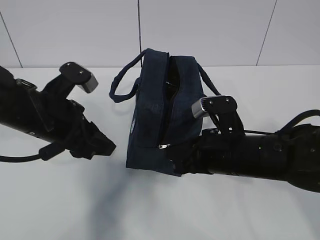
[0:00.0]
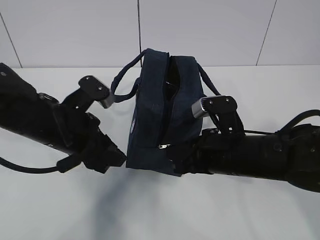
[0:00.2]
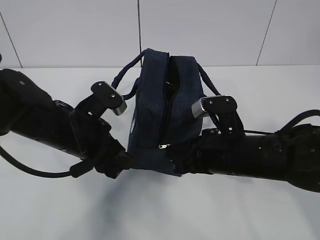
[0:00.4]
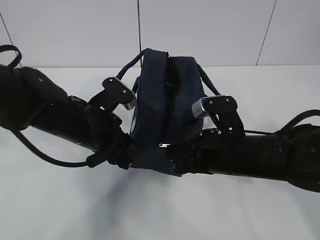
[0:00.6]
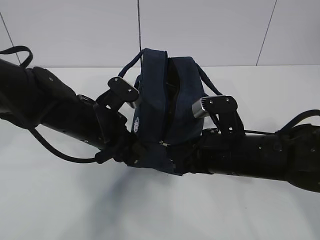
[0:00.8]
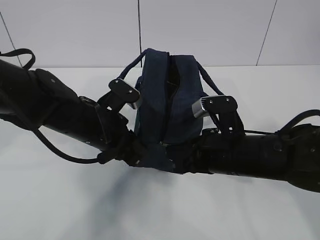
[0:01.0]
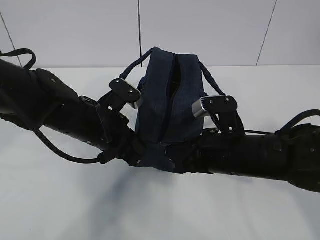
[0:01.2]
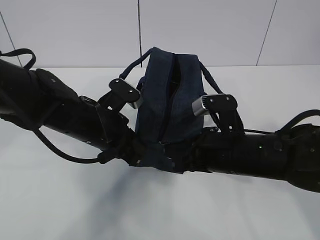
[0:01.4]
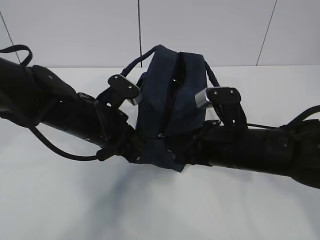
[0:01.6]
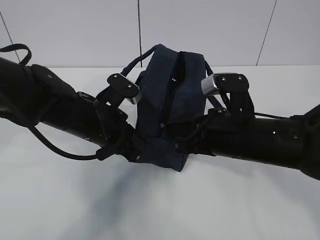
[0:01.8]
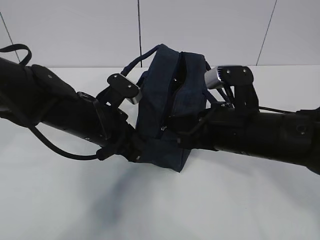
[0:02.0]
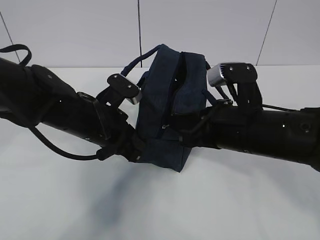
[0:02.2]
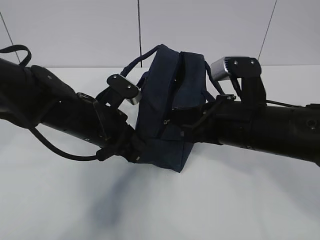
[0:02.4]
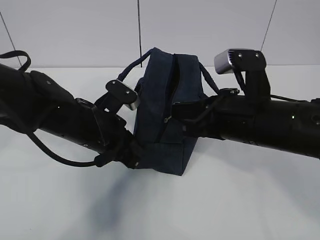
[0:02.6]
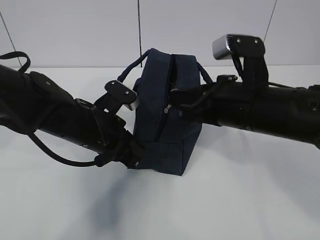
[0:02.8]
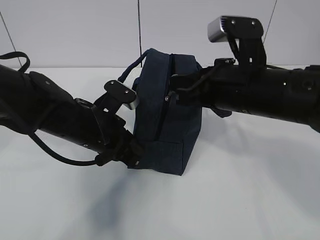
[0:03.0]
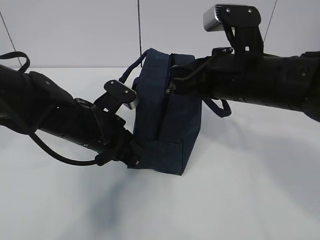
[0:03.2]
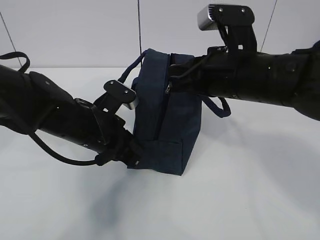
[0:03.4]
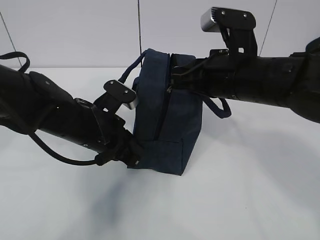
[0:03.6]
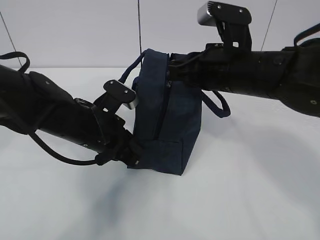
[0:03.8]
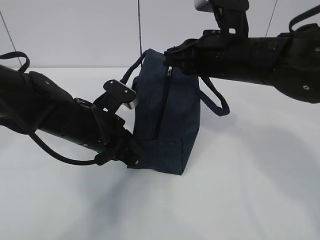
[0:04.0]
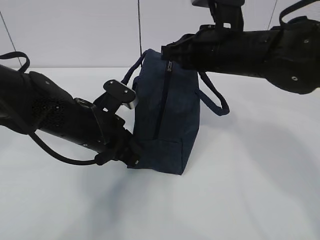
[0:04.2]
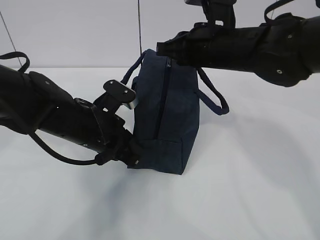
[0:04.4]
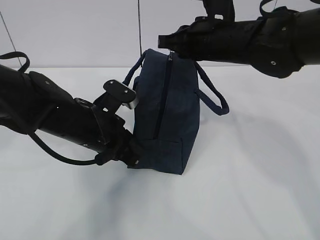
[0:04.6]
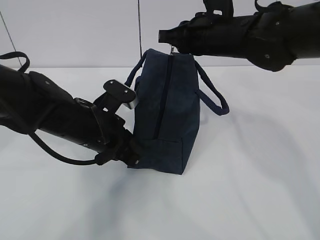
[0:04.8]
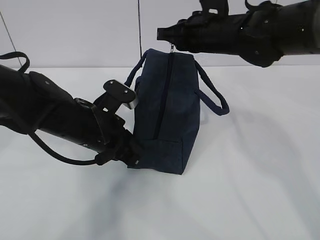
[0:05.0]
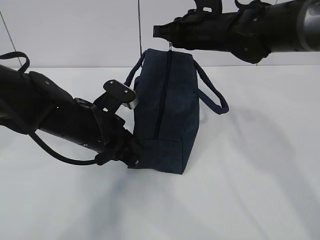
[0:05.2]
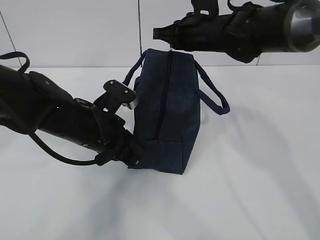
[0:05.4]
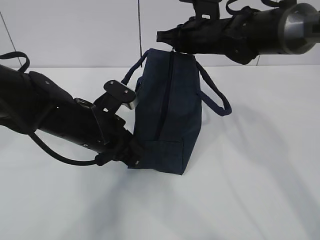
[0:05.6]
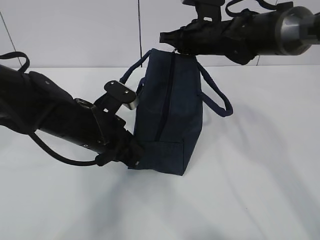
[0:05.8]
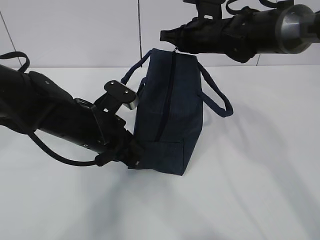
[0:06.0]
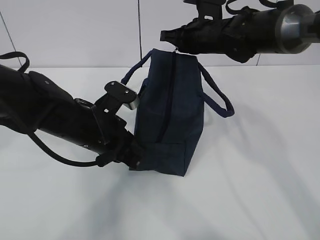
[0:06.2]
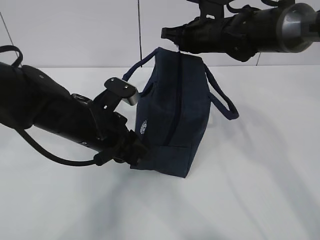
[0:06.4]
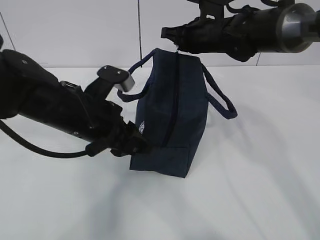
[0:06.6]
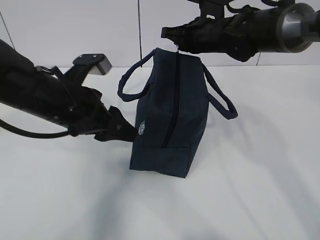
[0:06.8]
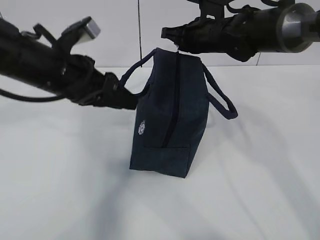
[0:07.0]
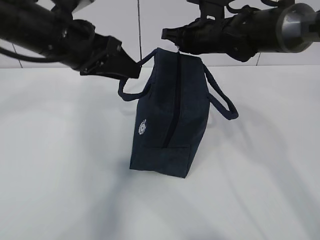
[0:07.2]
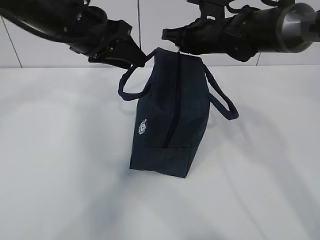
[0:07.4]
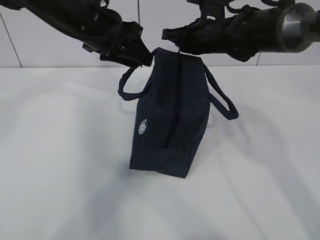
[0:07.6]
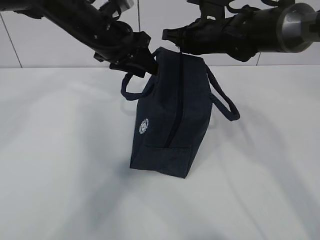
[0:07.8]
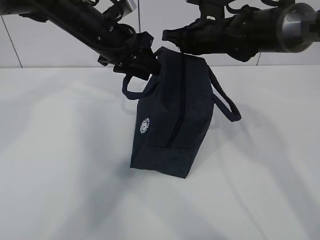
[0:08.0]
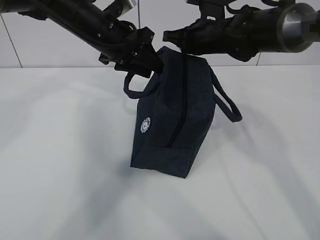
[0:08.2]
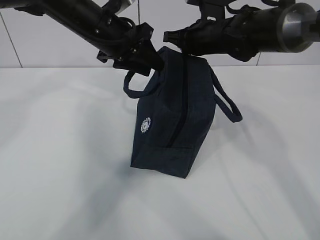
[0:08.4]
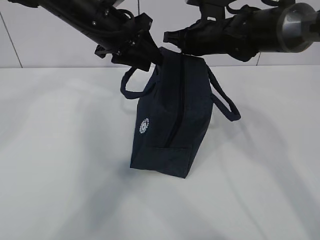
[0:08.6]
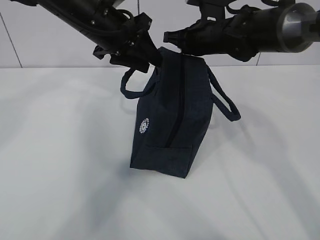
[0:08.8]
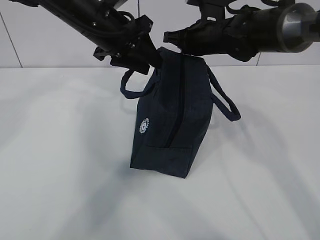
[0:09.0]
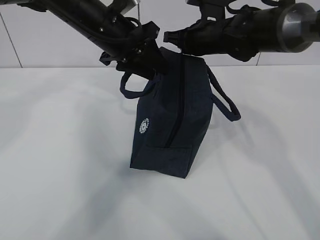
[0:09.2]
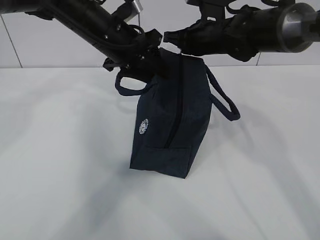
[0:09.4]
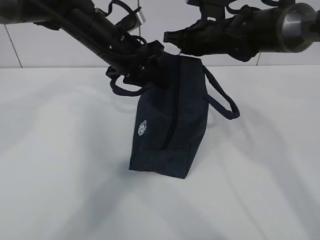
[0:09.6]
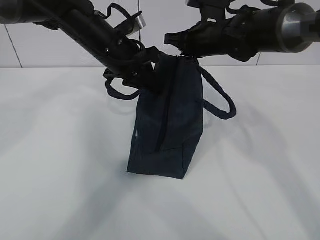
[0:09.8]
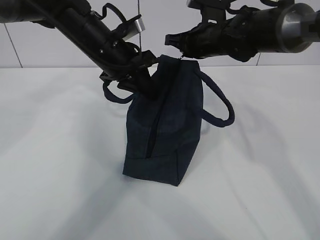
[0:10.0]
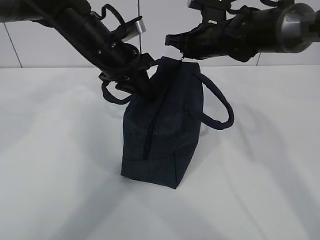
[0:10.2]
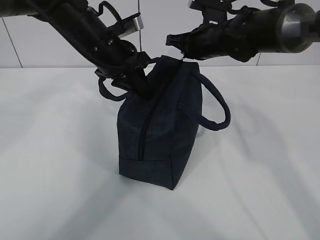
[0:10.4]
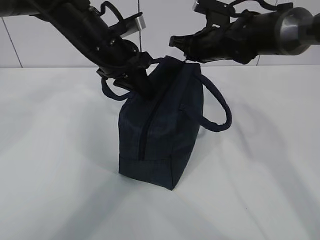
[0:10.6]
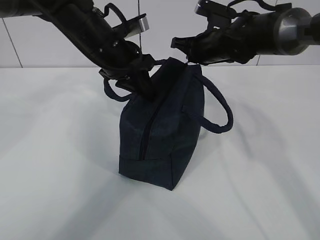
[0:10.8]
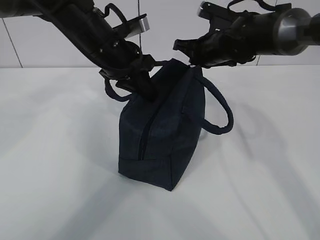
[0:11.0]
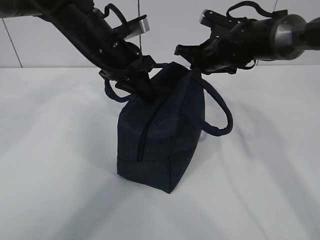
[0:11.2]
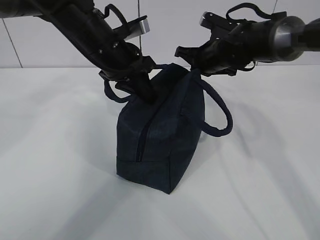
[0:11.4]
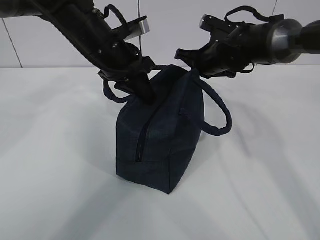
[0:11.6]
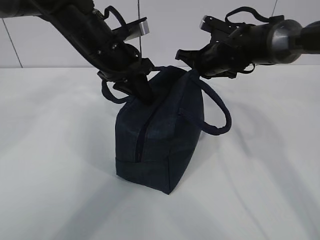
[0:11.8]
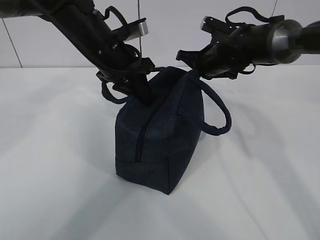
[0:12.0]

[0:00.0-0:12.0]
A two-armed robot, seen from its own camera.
0:00.0 to 0:01.6: The left gripper goes roughly 5 cm to the right, and closes.
0:01.6 to 0:03.0: The right gripper goes approximately 10 cm upward.
0:03.0 to 0:04.4: The right gripper shifts about 10 cm forward.
0:04.4 to 0:06.0: The right gripper is displaced forward by about 10 cm.
0:06.0 to 0:07.6: The left gripper moves upward and forward, roughly 15 cm, and opens its fingers.
0:07.6 to 0:09.0: The grippers stay close to where they were, moving slightly.
0:09.0 to 0:10.4: The left gripper closes its fingers.
0:10.4 to 0:12.0: The right gripper moves about 5 cm.

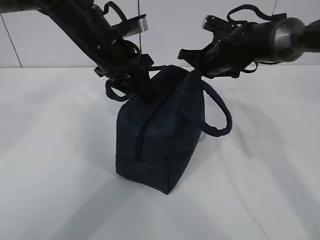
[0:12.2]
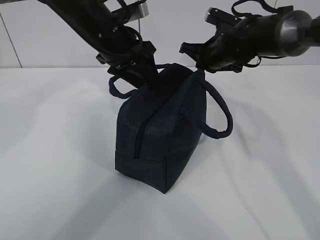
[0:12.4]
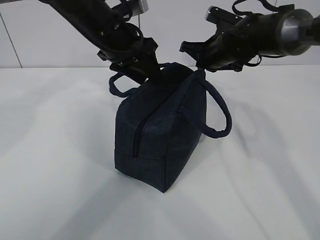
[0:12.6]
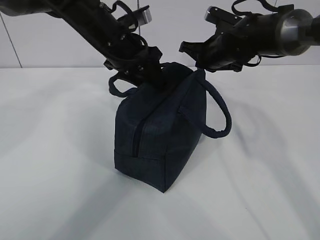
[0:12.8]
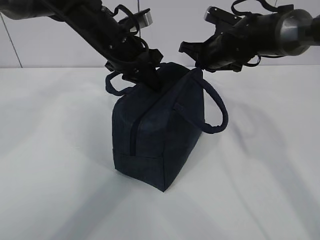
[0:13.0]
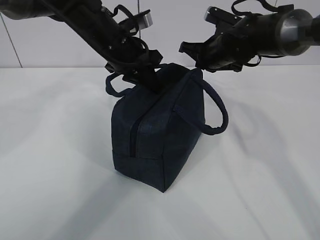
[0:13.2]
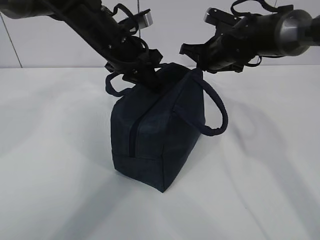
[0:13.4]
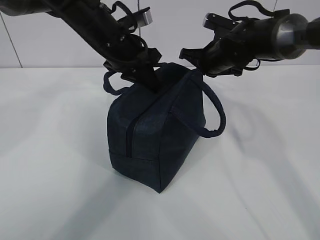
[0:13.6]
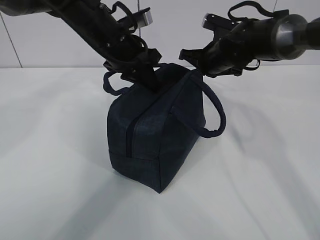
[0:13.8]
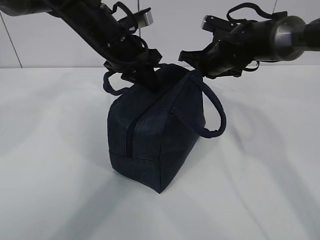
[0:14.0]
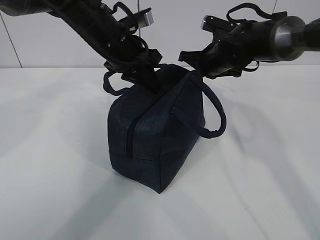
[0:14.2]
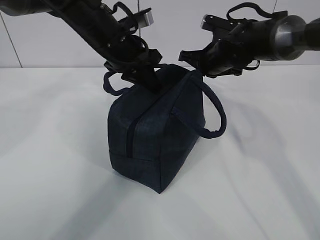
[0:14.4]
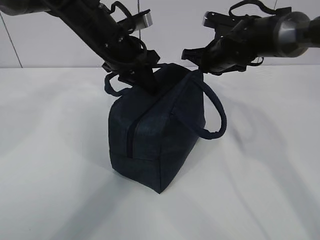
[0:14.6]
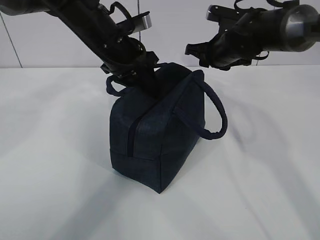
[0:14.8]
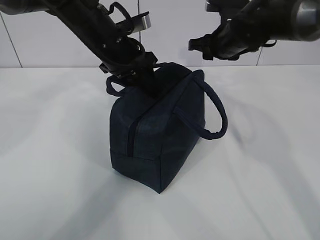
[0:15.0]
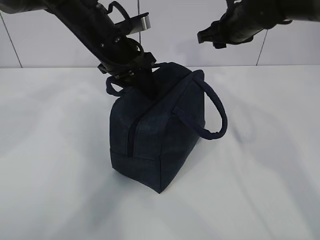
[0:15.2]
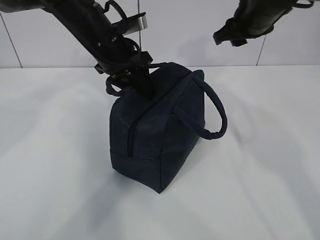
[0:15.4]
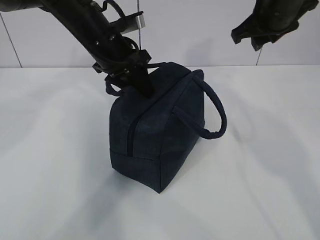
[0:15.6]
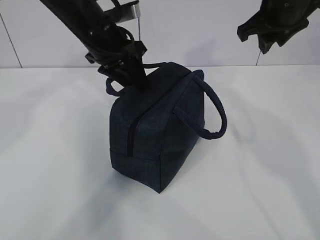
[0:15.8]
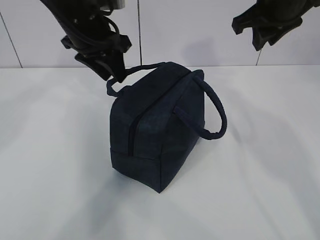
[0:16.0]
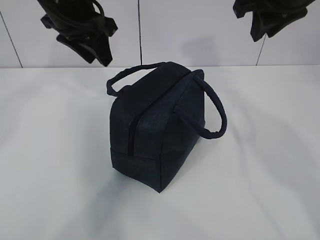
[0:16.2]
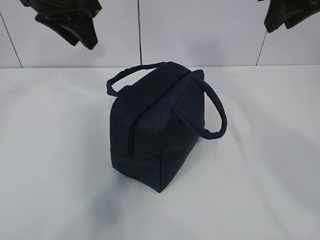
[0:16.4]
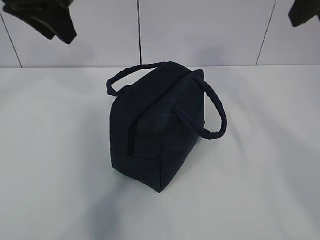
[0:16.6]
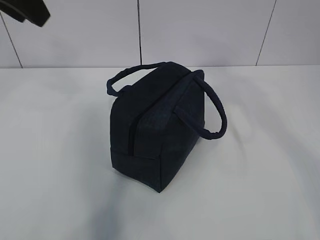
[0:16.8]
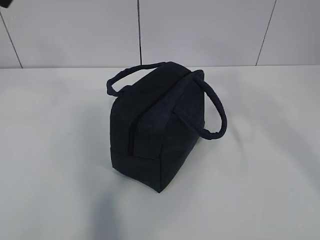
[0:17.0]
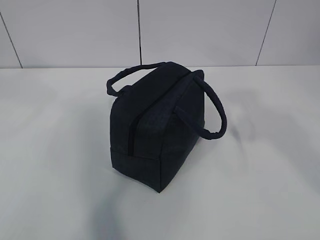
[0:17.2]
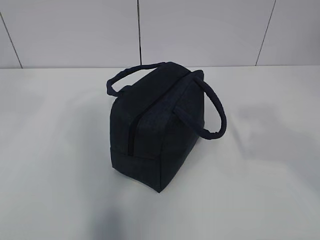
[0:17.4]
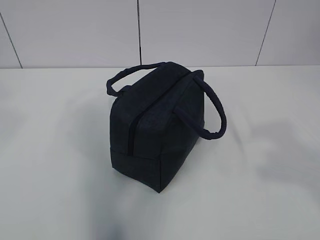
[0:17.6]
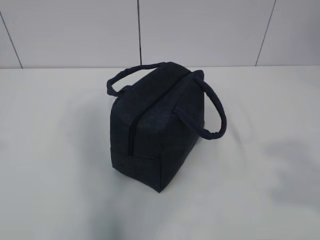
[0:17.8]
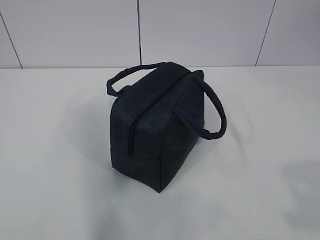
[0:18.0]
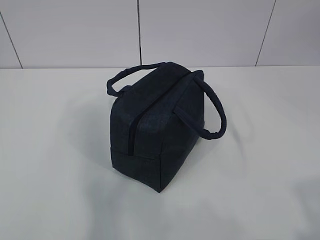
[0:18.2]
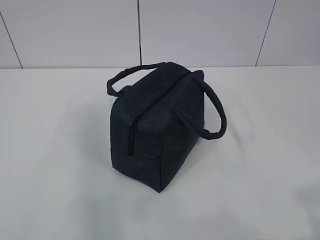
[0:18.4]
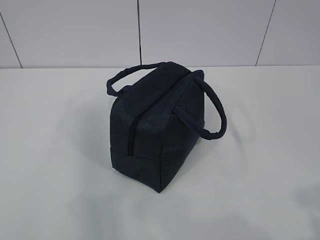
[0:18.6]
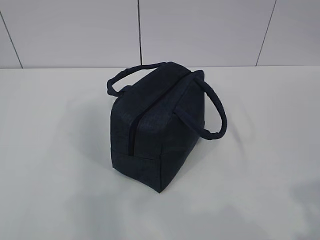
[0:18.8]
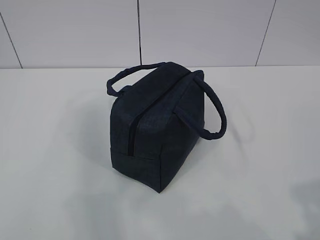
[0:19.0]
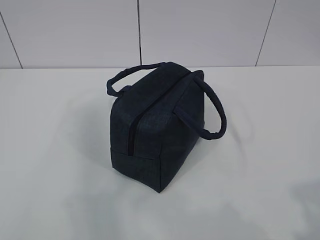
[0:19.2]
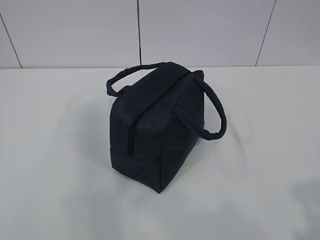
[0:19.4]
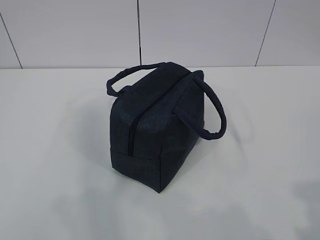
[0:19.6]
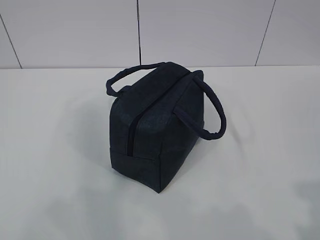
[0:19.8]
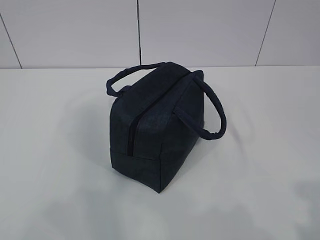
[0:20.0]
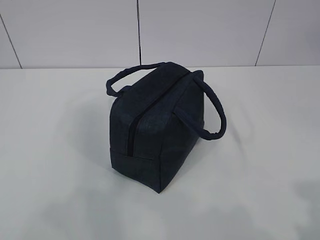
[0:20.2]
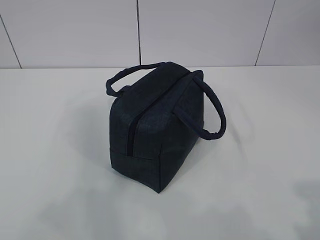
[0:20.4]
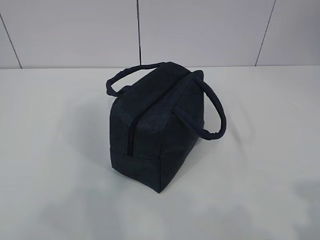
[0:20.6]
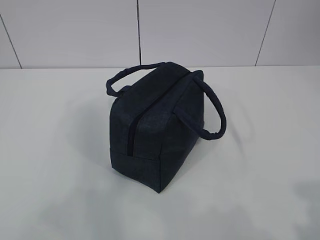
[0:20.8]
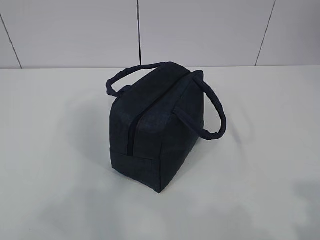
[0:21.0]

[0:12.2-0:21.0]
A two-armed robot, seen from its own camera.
0:12.2 to 0:13.6: The left gripper closes its fingers.
0:13.6 to 0:15.2: The left gripper opens up. Meanwhile the right gripper goes roughly 10 cm upward, and opens its fingers.
0:15.2 to 0:16.6: The left gripper goes roughly 20 cm upward, to the left and backward, while the right gripper travels backward and upward by roughly 25 cm.
0:16.6 to 0:18.0: The left gripper is displaced backward and to the left by about 35 cm; the right gripper heads backward, covering roughly 30 cm.

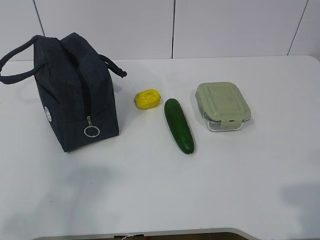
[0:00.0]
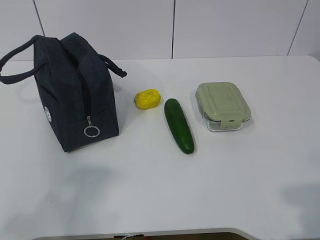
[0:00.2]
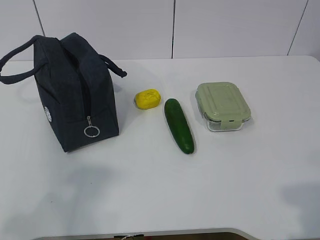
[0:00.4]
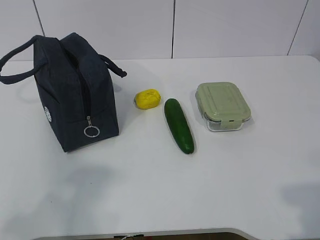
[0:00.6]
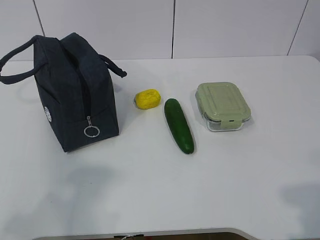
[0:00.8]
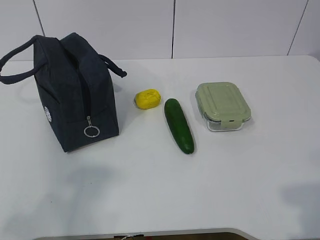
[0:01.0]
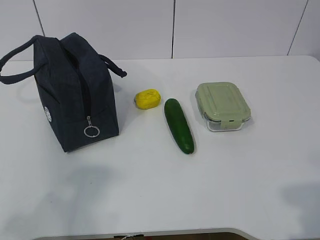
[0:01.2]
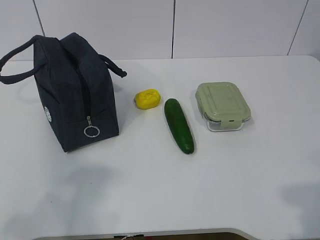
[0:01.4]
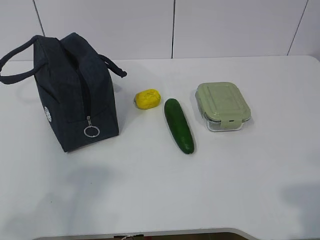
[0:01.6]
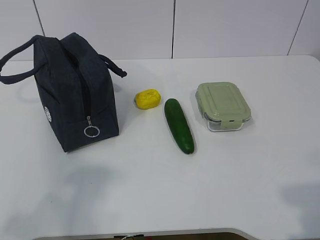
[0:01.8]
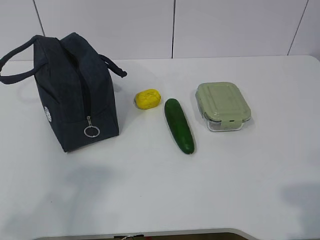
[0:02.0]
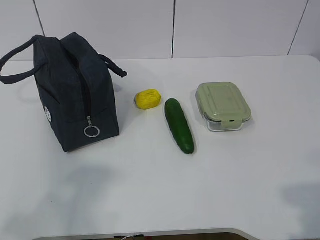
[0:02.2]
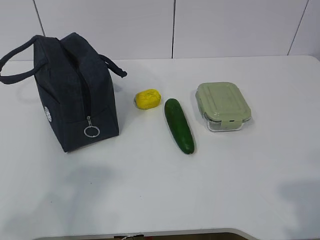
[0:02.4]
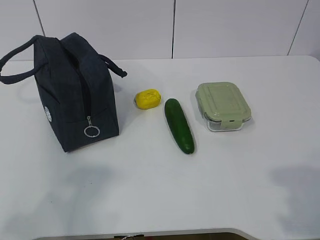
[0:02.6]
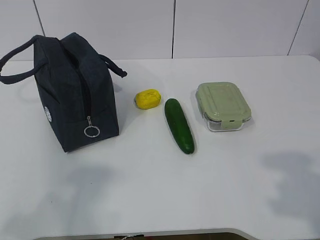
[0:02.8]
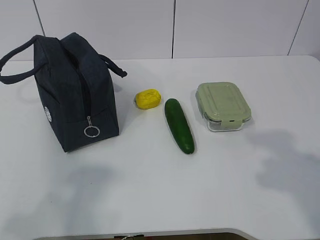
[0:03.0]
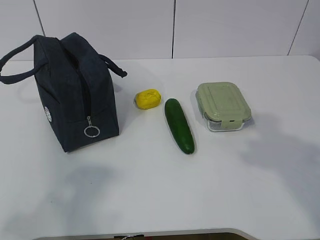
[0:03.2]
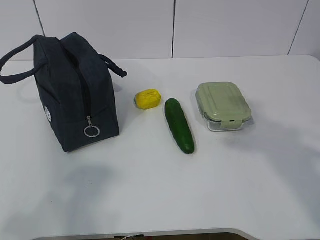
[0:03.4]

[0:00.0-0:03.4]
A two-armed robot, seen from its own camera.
0:01.6 to 0:03.4: The right gripper goes about 15 cm forward and upward.